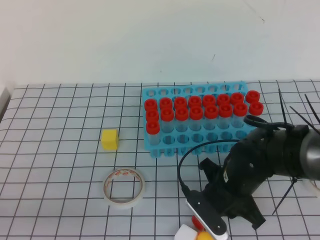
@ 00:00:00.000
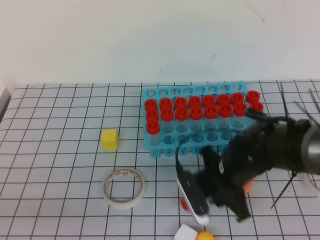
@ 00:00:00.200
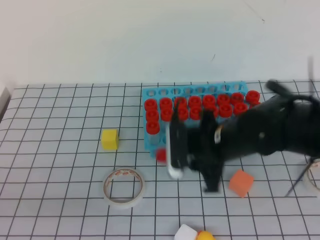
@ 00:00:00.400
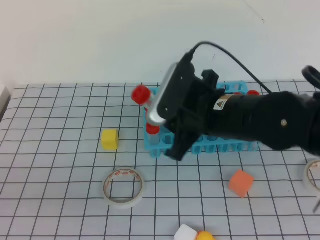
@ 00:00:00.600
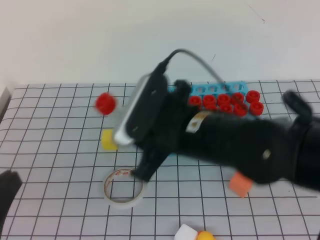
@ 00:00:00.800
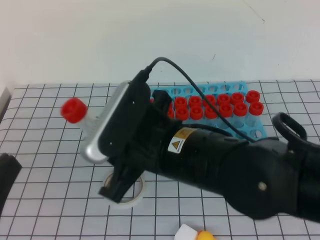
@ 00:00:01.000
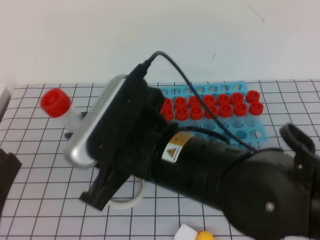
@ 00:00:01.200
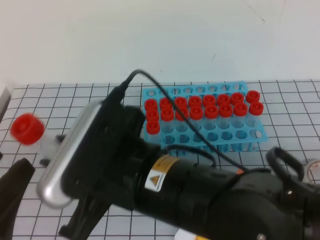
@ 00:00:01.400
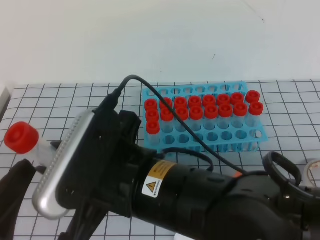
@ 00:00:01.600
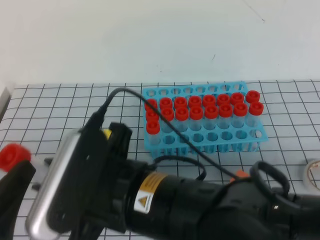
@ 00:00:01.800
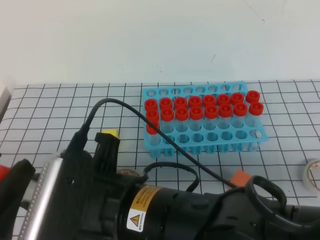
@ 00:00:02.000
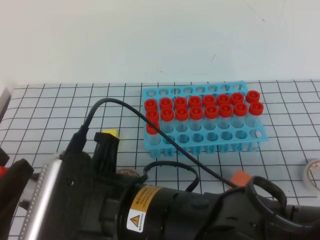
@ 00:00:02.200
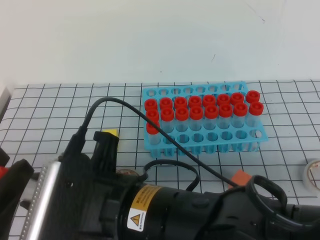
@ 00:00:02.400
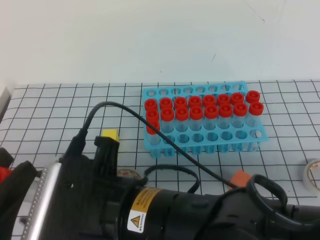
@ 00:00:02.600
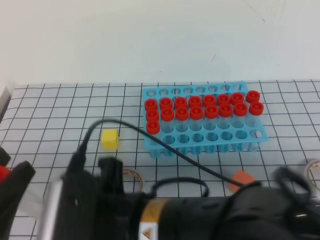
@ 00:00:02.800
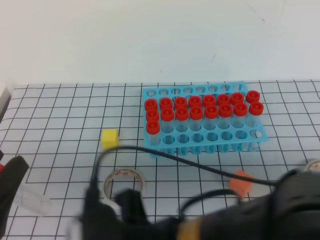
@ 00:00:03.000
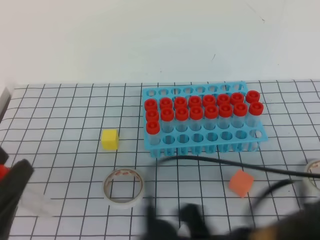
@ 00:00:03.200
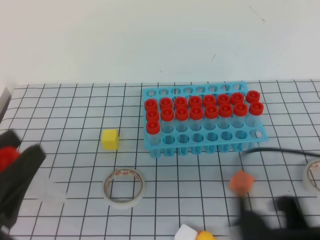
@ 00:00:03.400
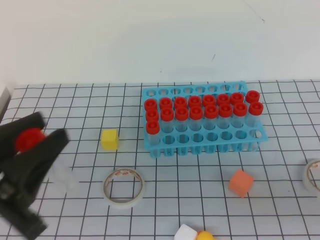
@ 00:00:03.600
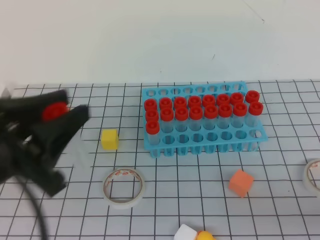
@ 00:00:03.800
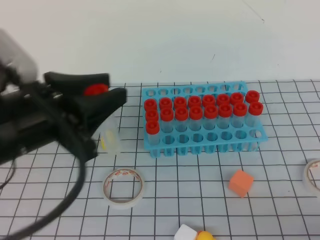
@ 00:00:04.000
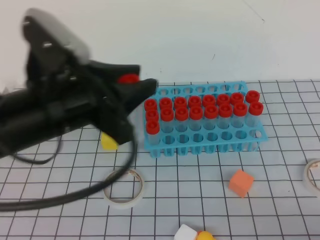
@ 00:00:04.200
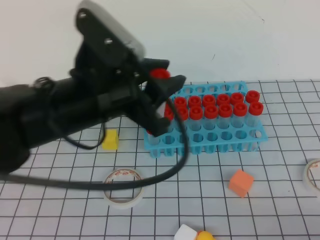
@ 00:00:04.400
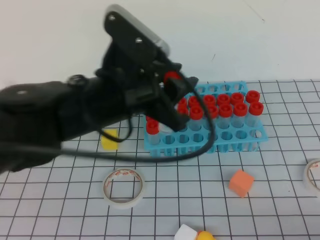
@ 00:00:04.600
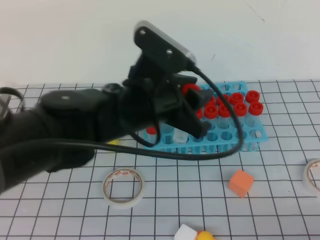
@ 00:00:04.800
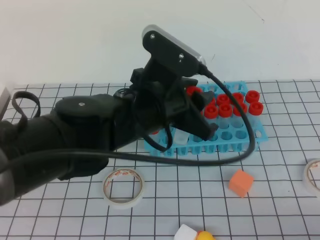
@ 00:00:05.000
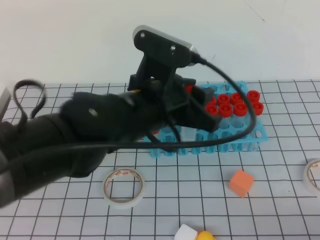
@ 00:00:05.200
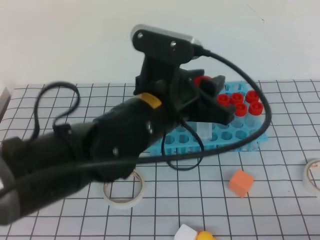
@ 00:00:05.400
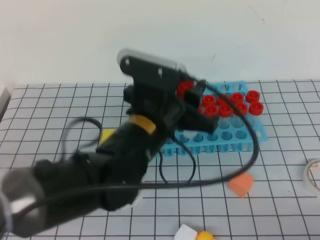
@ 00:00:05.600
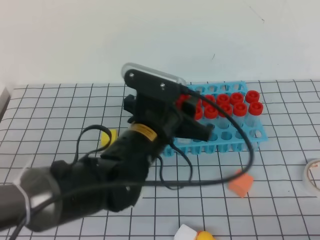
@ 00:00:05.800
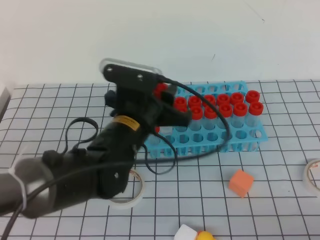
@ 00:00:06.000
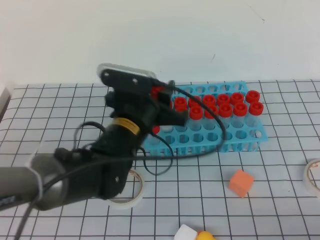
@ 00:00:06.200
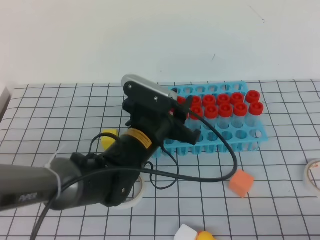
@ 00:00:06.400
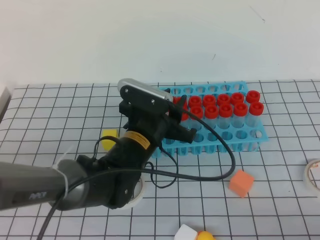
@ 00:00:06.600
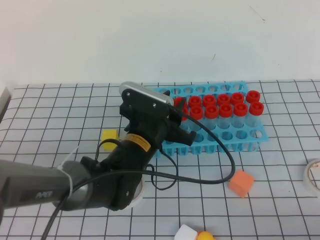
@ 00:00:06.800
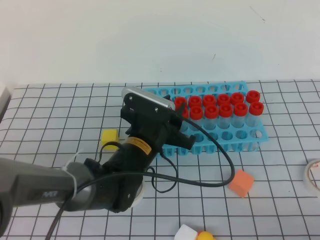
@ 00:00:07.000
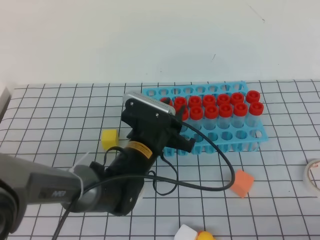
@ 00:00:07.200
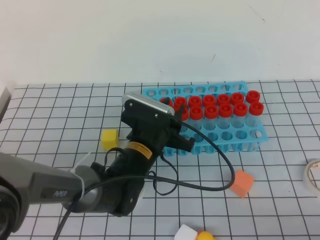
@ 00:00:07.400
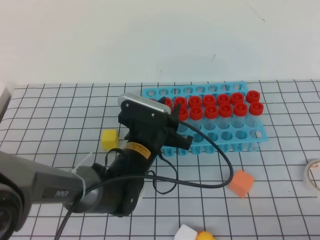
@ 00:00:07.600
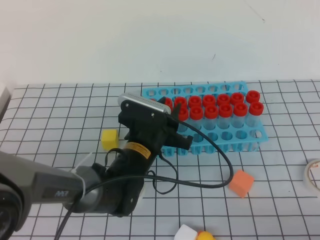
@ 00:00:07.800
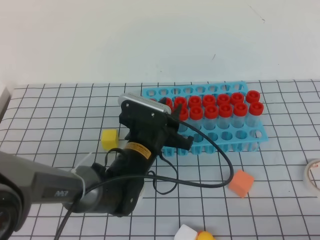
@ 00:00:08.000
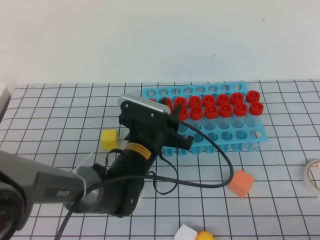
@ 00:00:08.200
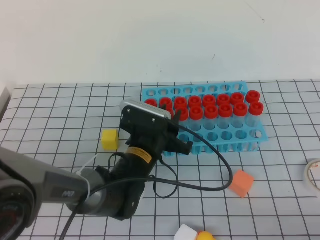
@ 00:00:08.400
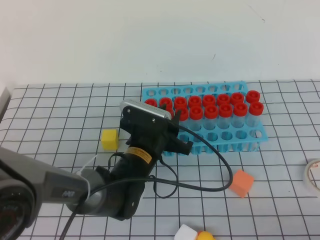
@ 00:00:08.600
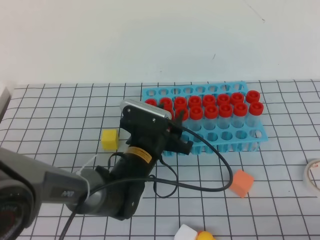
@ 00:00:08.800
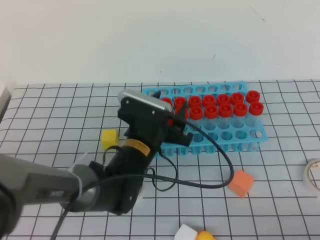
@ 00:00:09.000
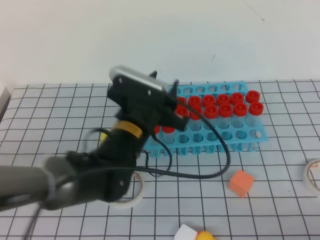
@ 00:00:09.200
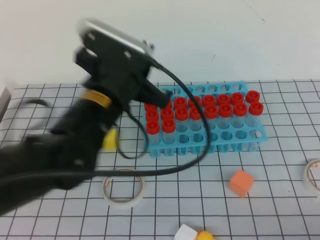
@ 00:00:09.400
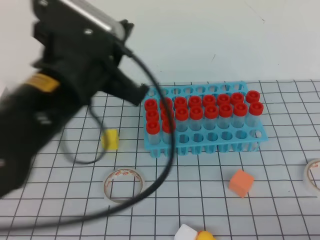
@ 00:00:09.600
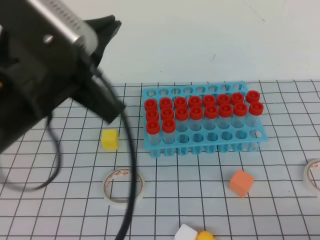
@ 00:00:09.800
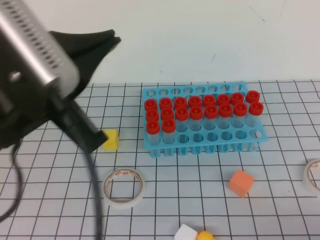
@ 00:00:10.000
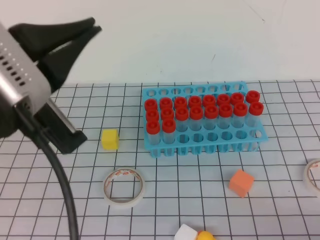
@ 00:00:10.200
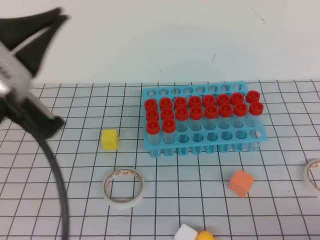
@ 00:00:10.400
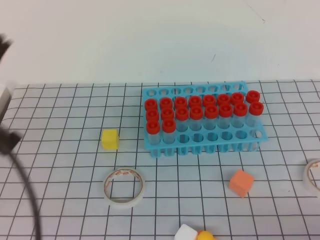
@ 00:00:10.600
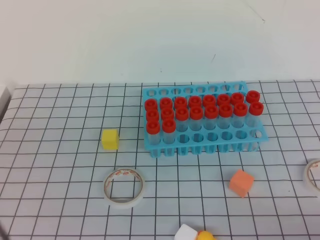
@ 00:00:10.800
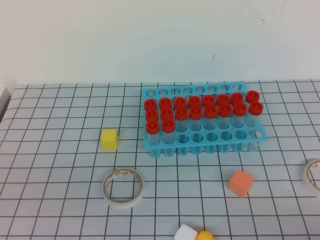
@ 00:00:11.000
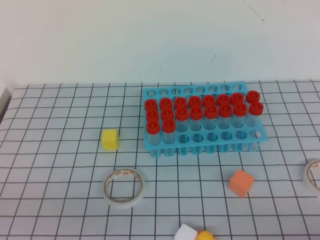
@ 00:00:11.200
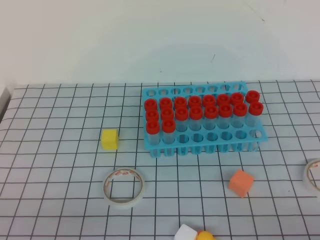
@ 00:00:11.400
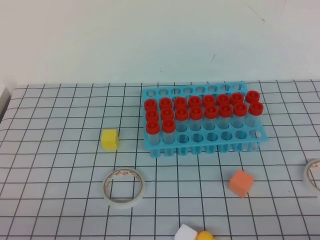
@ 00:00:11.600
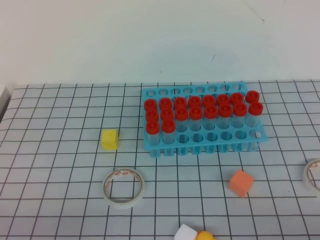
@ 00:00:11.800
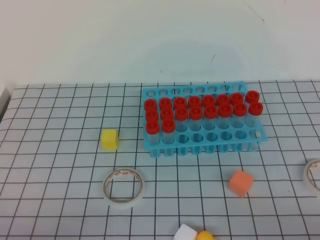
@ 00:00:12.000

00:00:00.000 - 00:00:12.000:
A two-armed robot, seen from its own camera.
00:00:00.000 - 00:00:01.600: The right gripper travels upward, backward and to the left by approximately 25 cm. The left gripper heads upward, covering approximately 5 cm, and opens up.
00:00:01.600 - 00:00:03.000: The right gripper moves backward, about 5 cm, and opens up.
00:00:03.000 - 00:00:04.400: The left gripper shifts some 20 cm forward and to the right. The right gripper travels to the right by about 30 cm, and closes its fingers.
00:00:04.400 - 00:00:06.000: The left gripper travels downward, to the right and forward by approximately 15 cm.
00:00:06.000 - 00:00:07.600: The left gripper goes approximately 10 cm downward.
00:00:07.600 - 00:00:09.000: The left gripper opens its fingers.
00:00:09.000 - 00:00:10.400: The left gripper travels upward, backward and to the left by about 35 cm, and closes up.
00:00:10.400 - 00:00:12.000: The left gripper is displaced downward, to the left and backward by some 25 cm.
